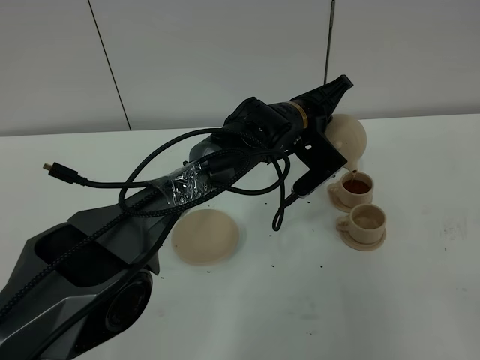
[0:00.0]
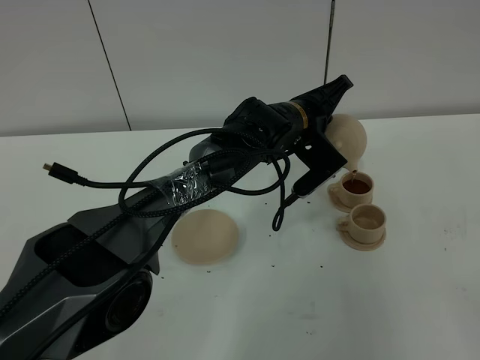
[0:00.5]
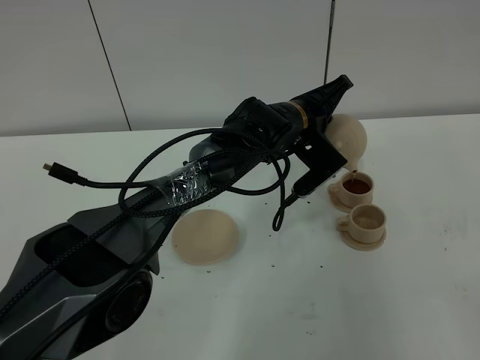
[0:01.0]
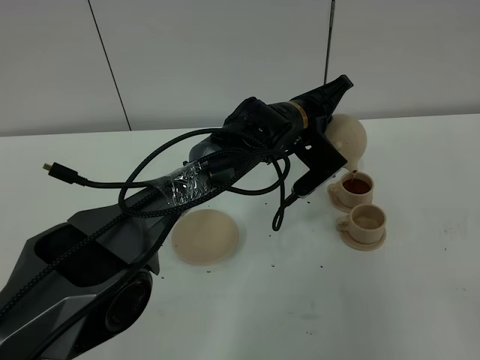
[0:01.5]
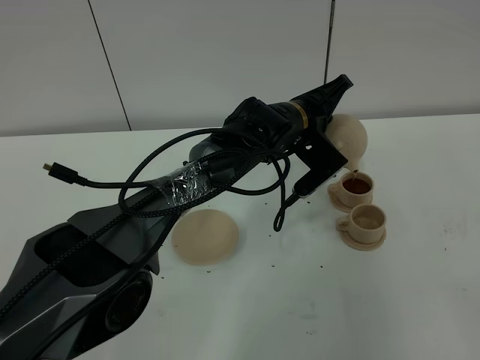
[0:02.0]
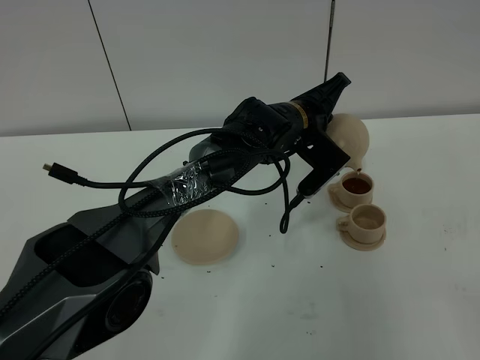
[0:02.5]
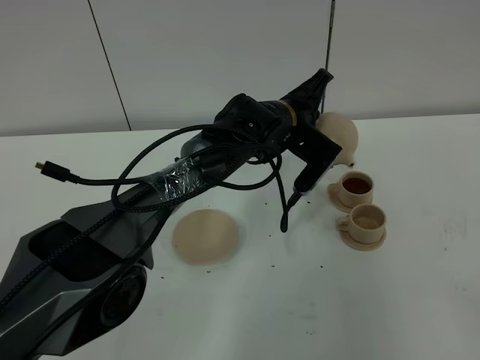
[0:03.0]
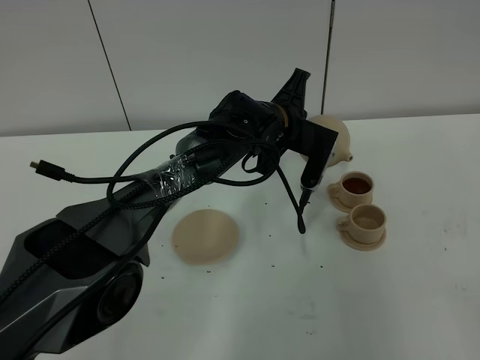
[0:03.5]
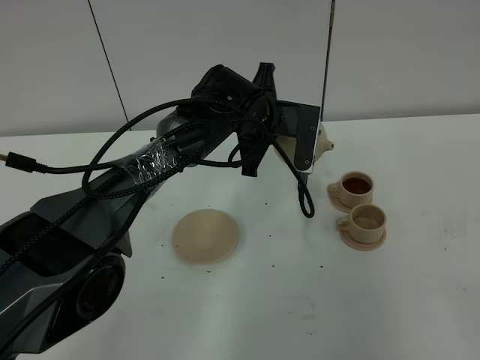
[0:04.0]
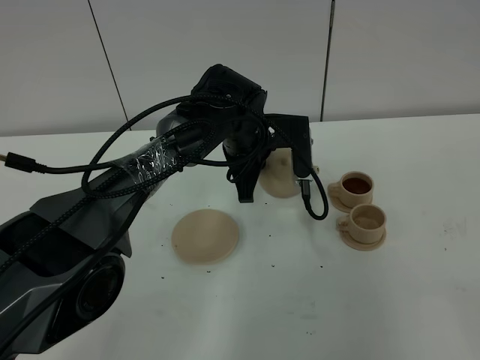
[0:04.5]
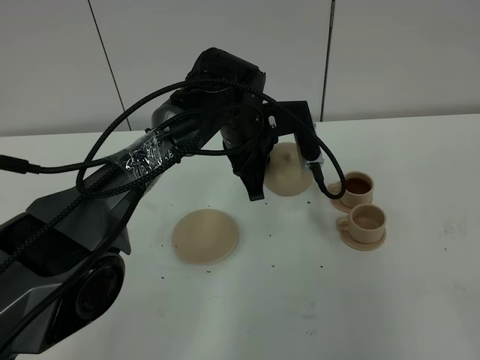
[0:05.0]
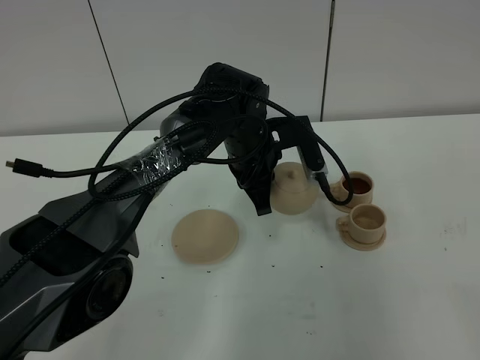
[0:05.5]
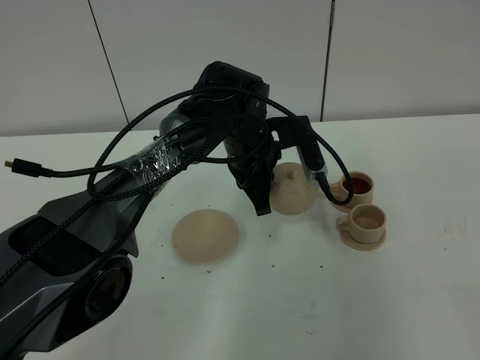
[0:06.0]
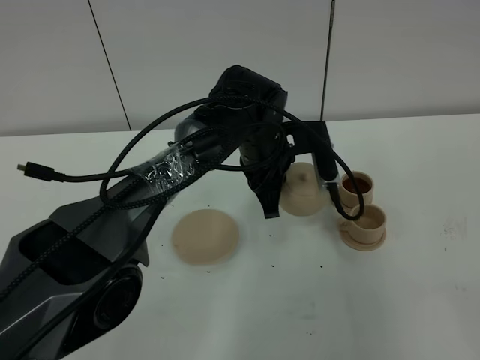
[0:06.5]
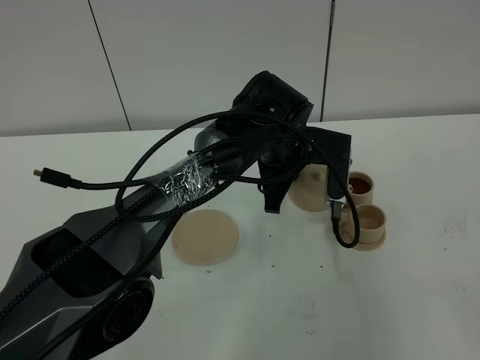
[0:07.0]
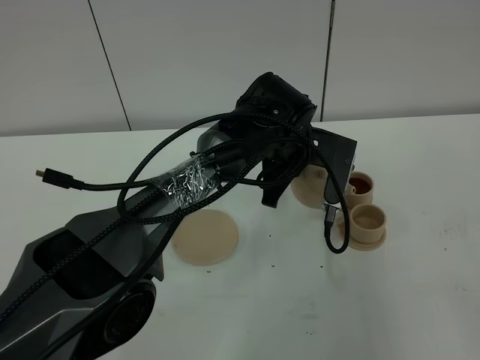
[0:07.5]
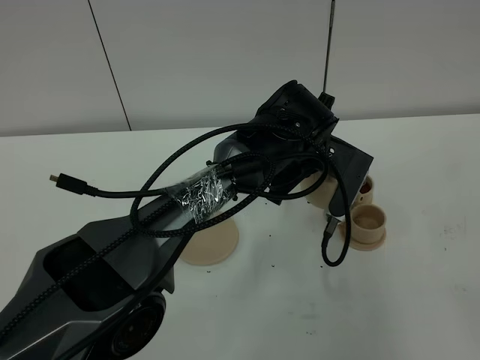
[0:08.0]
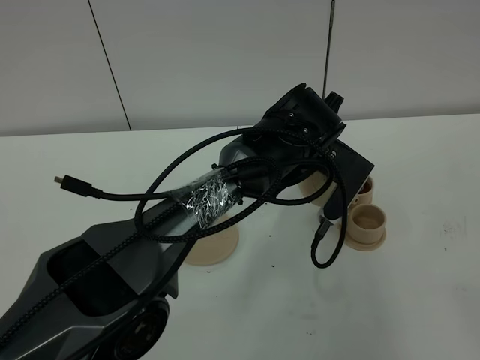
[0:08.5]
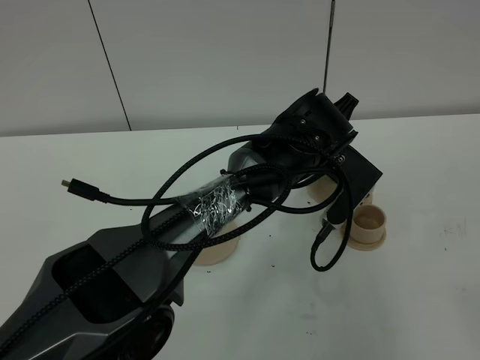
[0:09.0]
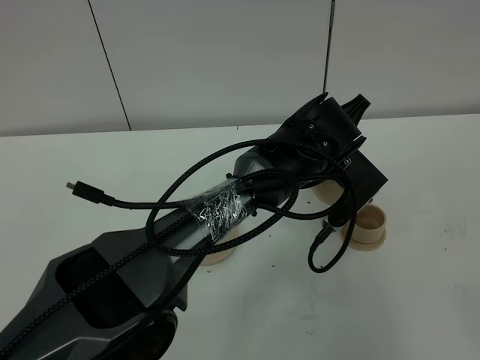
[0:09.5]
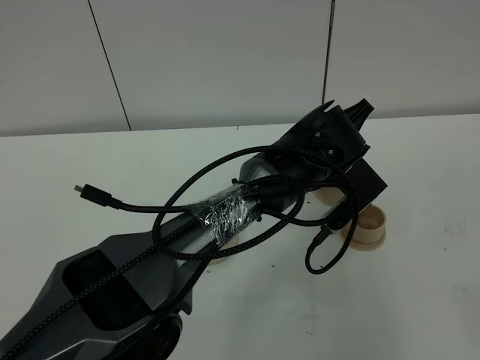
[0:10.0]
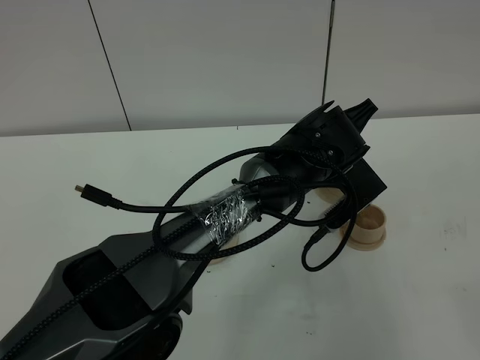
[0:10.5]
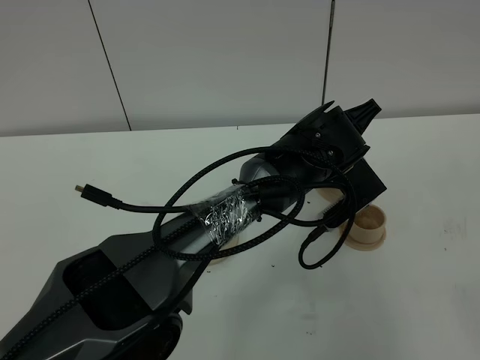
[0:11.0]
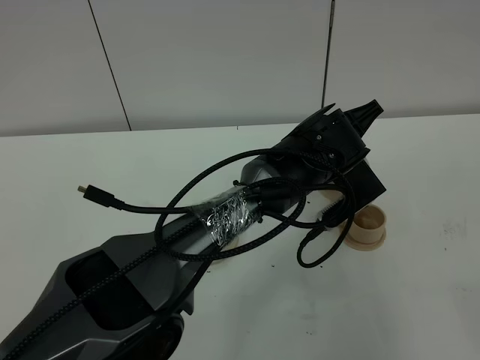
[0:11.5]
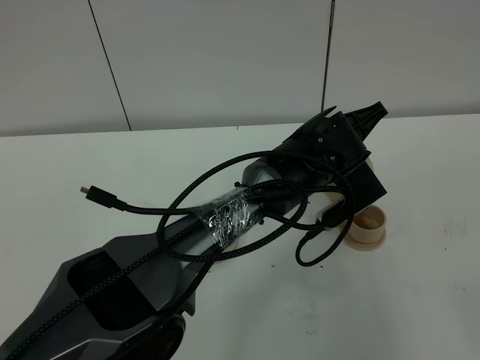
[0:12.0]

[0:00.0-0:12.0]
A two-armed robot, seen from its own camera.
Task of the whole recording: grasp the brown teapot and pour the tea into the two brown teacups one by one, put the brown teapot back in its original place.
Step, 0:00.0 to 0:03.0: Pour tea into the teacup with the left gripper.
0:00.0 to 0:02.0: Both grippers stay about where they are.
0:02.0 to 0:04.0: The left gripper goes about 5 cm to the left.
0:06.0 to 0:08.0: The left gripper goes about 5 cm to the right.
0:10.0 to 0:12.0: The grippers make only small movements.

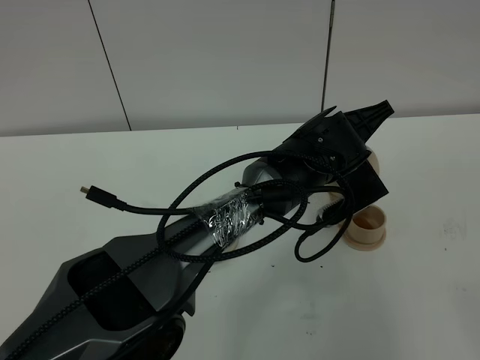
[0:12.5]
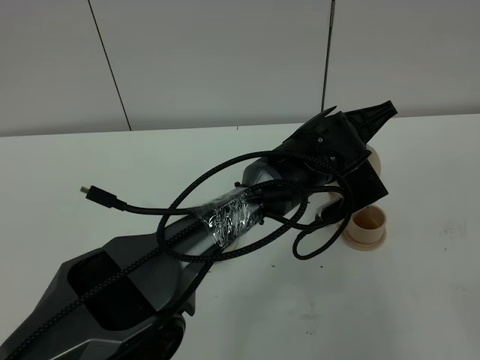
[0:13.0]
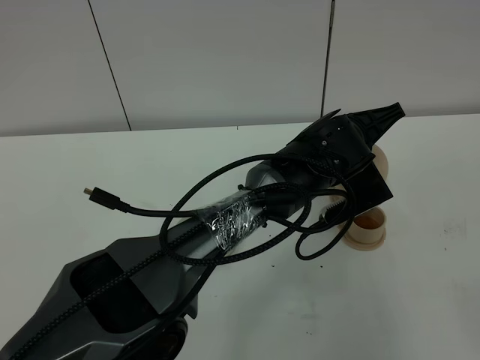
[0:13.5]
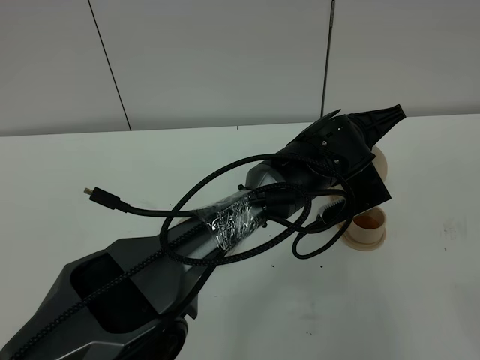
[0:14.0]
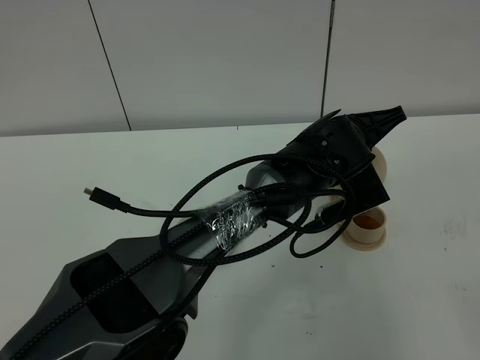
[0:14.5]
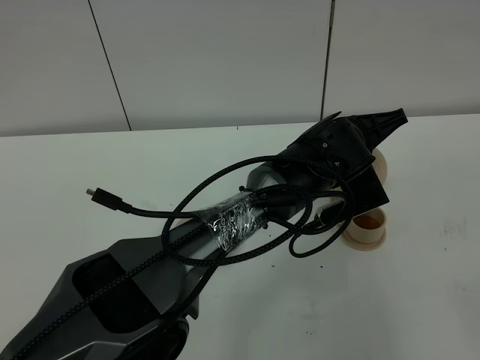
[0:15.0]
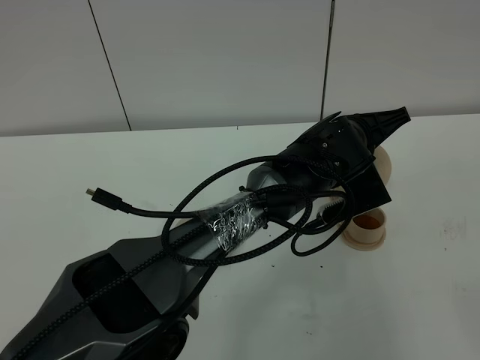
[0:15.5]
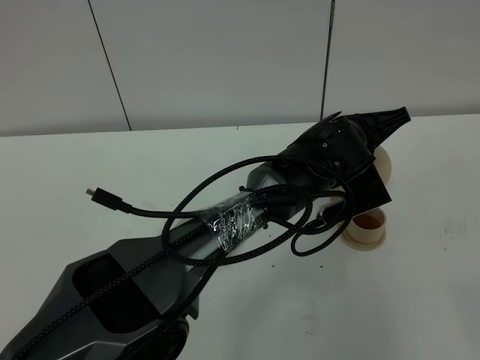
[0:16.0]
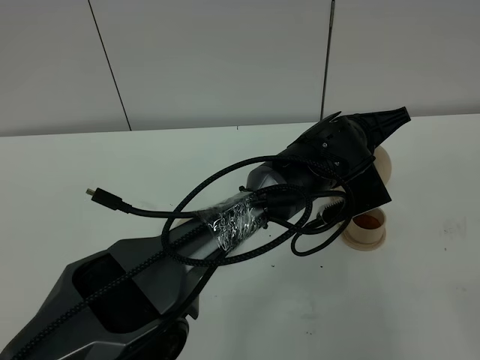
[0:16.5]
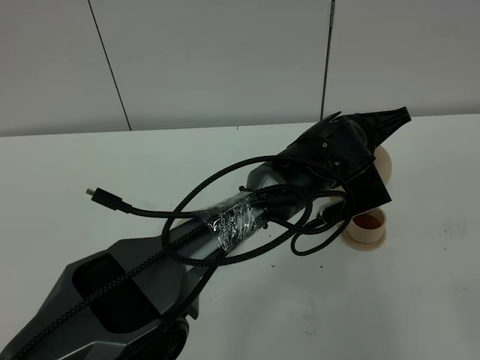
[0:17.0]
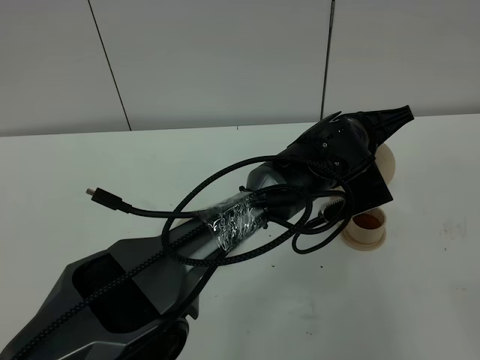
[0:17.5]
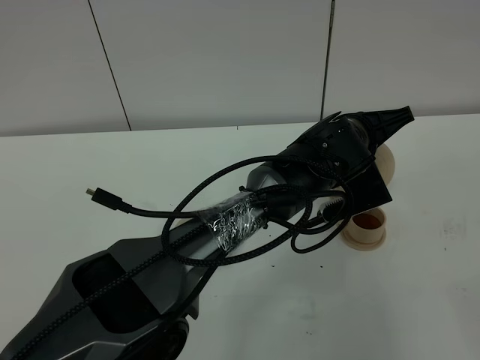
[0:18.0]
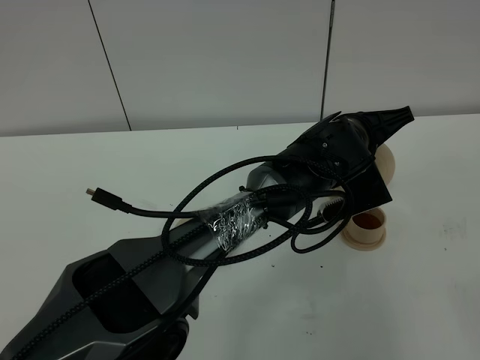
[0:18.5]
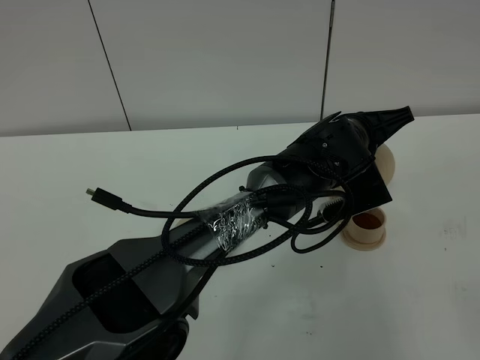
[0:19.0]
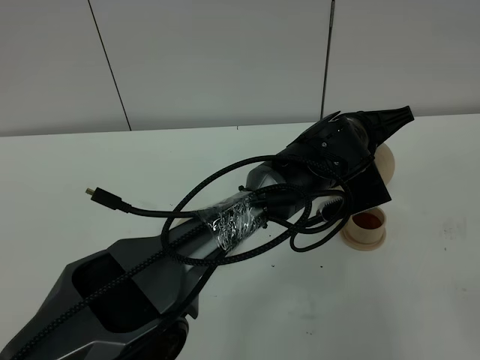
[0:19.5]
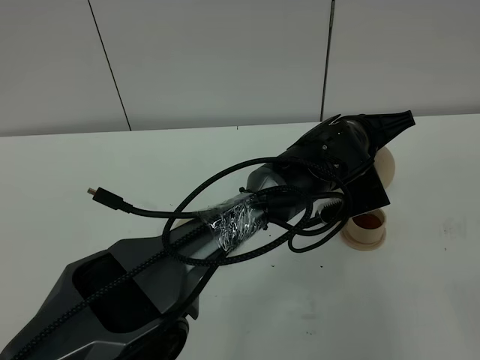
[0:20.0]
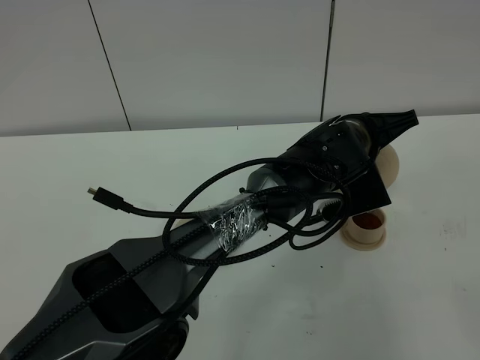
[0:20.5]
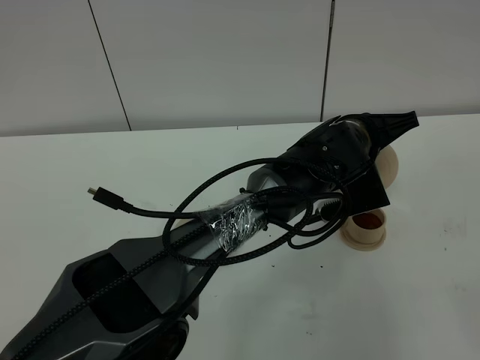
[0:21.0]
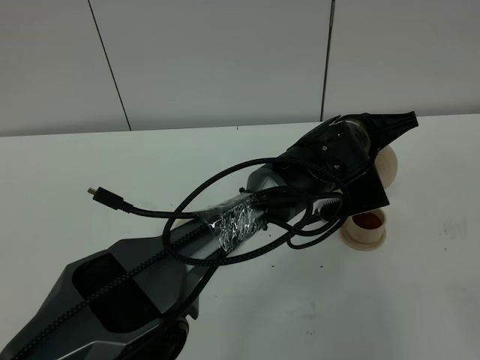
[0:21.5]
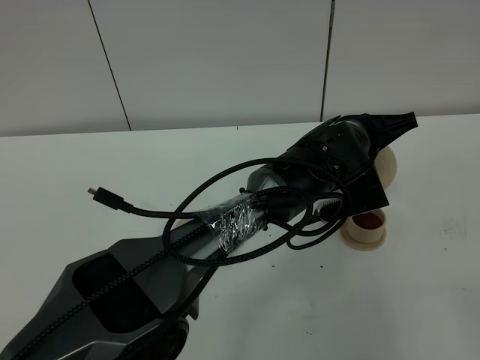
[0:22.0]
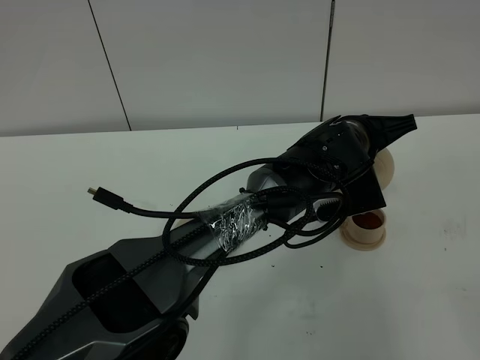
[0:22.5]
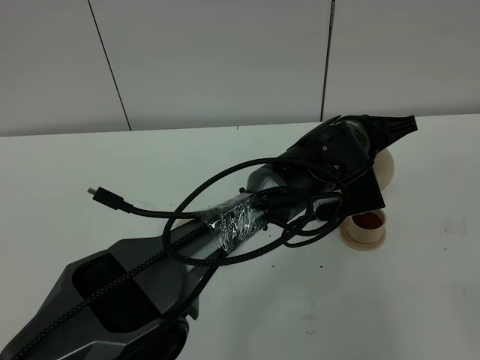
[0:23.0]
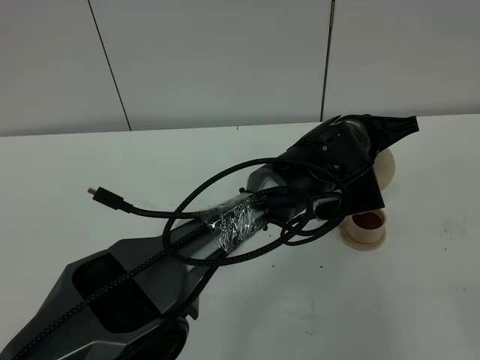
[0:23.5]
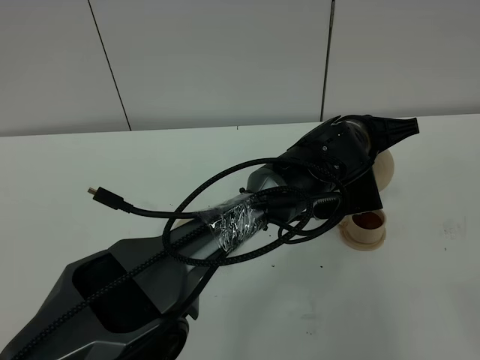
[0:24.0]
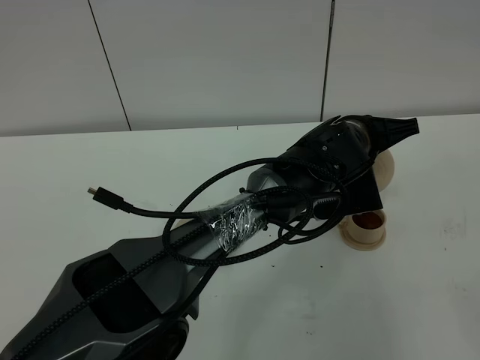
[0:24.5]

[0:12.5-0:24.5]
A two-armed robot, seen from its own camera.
Task of the whole recording: grasp the brown teapot and pour the tea into the two brown teacups one by one, put the brown teapot back in its original place.
0:12.5 to 0:14.5: The grippers make only small movements.
0:14.5 to 0:18.5: Both grippers stay about where they are.
0:18.5 to 0:20.5: Neither gripper changes place.
0:20.5 to 0:22.5: Neither gripper changes place.
0:22.5 to 0:24.5: Neither gripper changes place.

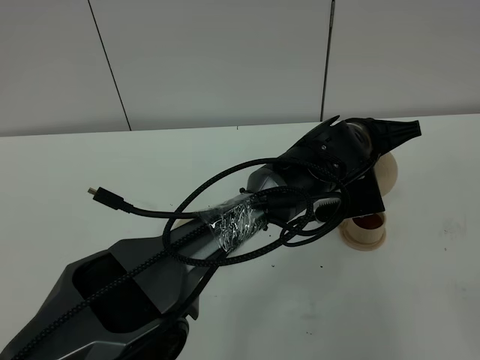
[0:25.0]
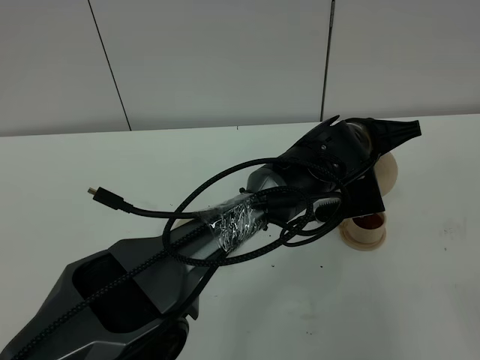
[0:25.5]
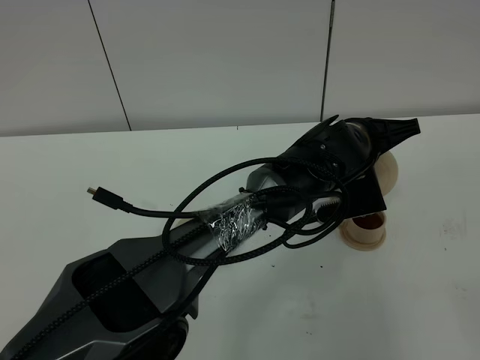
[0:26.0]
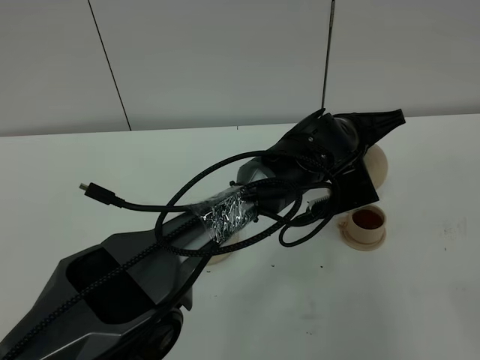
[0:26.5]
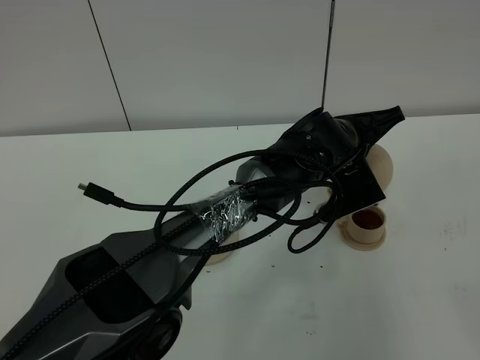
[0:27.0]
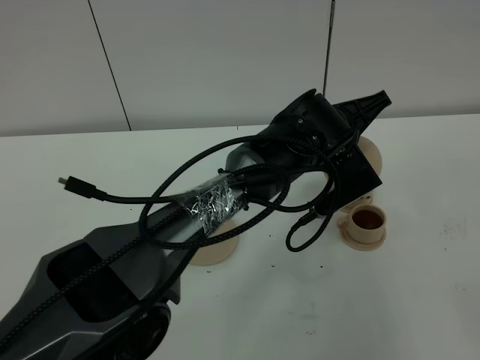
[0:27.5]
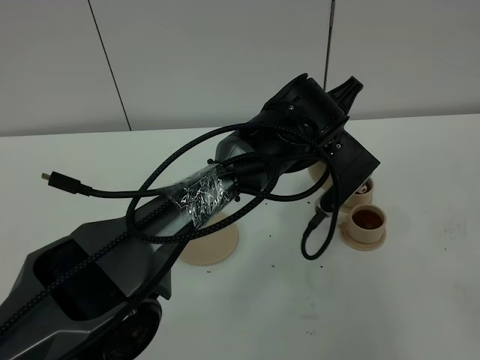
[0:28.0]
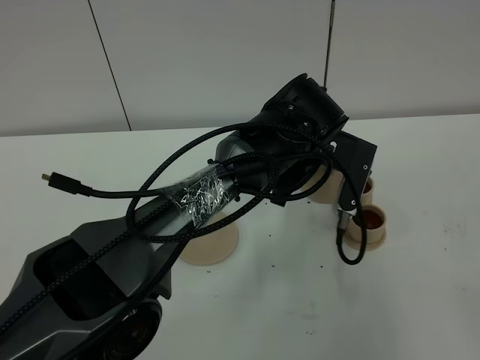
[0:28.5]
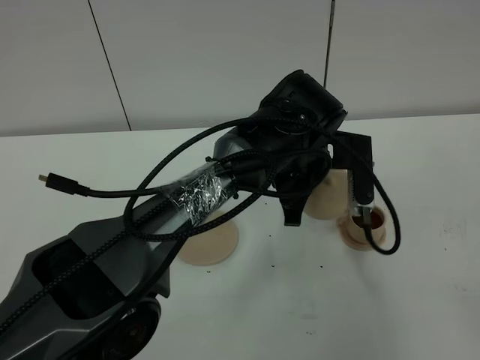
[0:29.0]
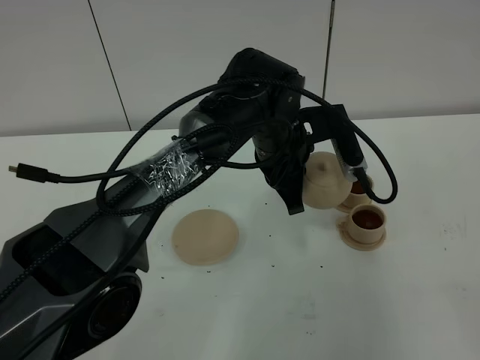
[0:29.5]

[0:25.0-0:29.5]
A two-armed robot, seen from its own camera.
Task of the whole recording: grasp the brown teapot and pour the tea into the two brown teacups one by one, put the brown teapot back in its original place.
Step, 0:25.0 to 0:27.5: Pour tea into the teacup with the left gripper.
0:25.0 to 0:27.0: The grippers move only a little.
0:27.0 to 0:29.5: The left gripper is displaced to the left by approximately 10 cm.
